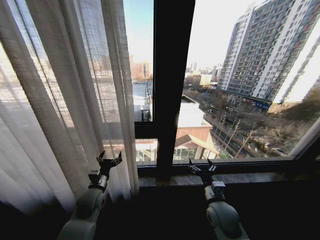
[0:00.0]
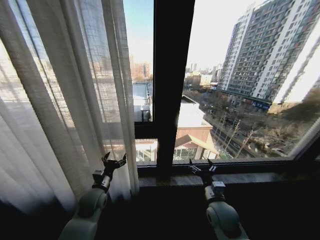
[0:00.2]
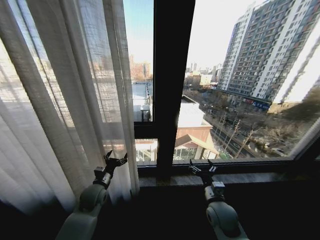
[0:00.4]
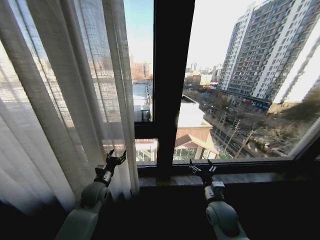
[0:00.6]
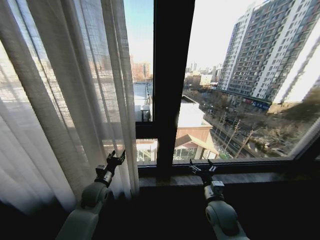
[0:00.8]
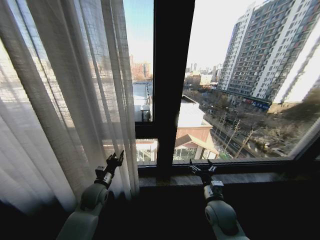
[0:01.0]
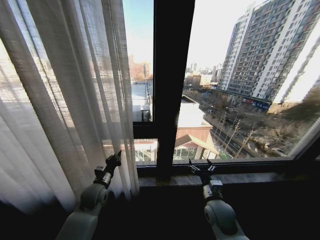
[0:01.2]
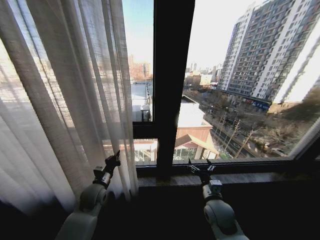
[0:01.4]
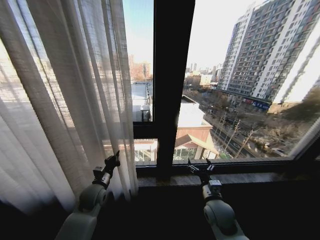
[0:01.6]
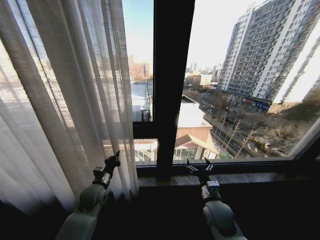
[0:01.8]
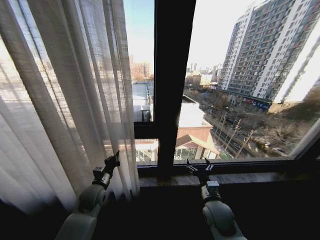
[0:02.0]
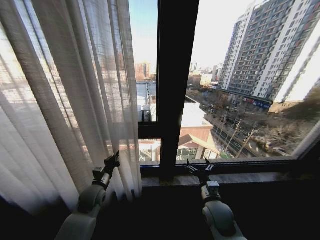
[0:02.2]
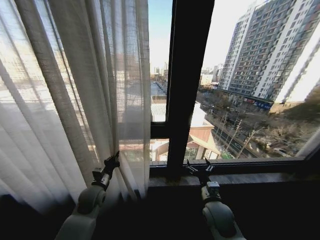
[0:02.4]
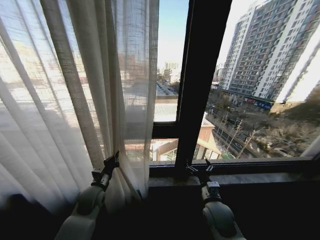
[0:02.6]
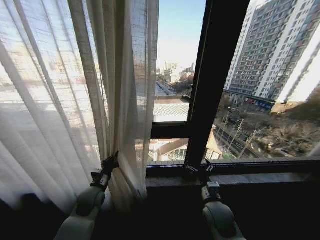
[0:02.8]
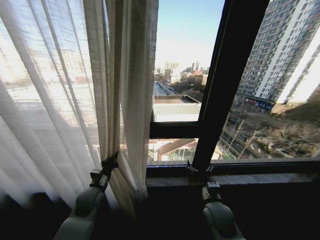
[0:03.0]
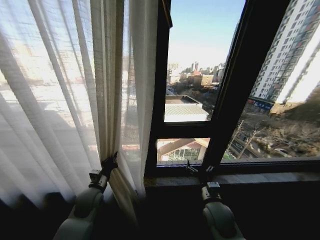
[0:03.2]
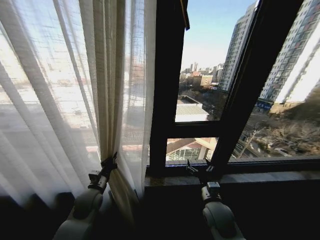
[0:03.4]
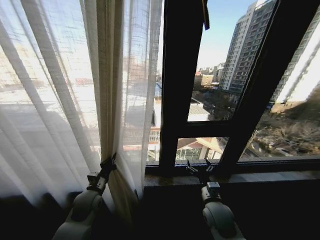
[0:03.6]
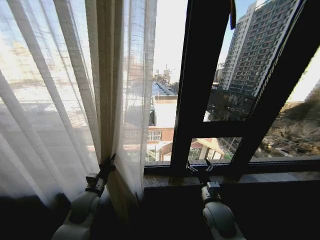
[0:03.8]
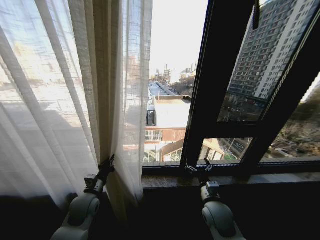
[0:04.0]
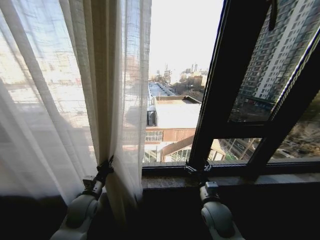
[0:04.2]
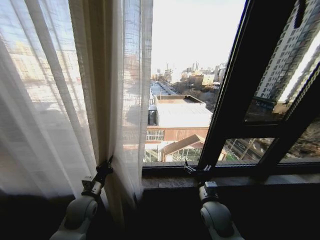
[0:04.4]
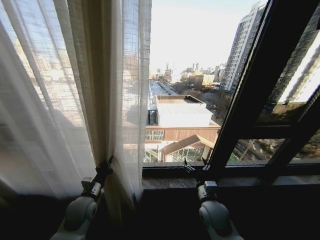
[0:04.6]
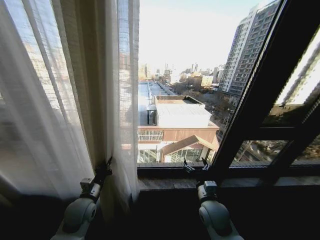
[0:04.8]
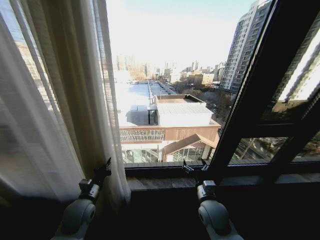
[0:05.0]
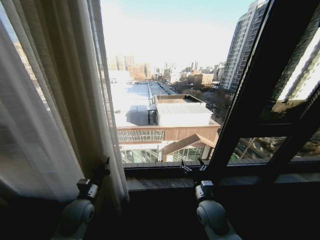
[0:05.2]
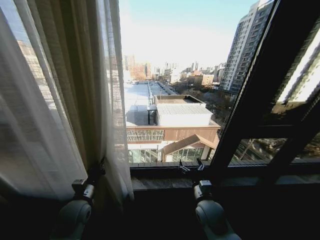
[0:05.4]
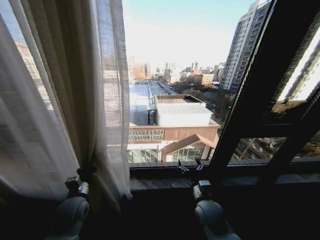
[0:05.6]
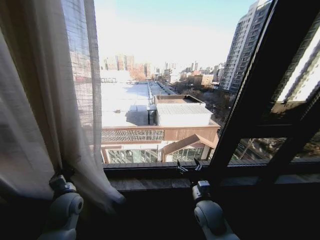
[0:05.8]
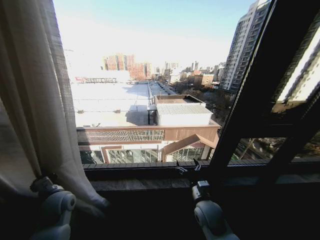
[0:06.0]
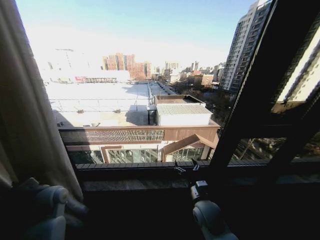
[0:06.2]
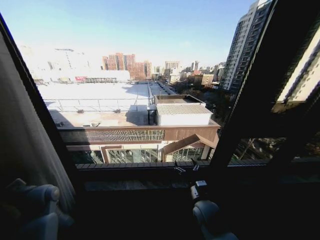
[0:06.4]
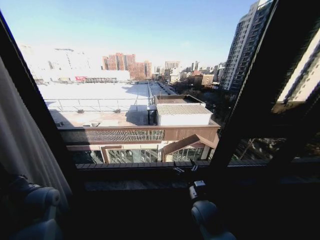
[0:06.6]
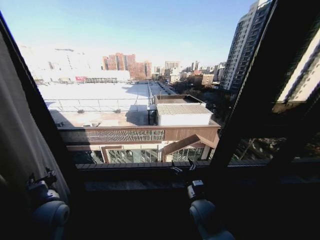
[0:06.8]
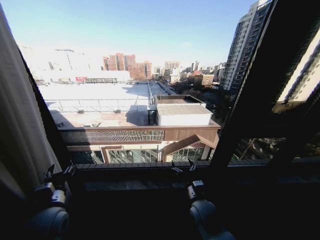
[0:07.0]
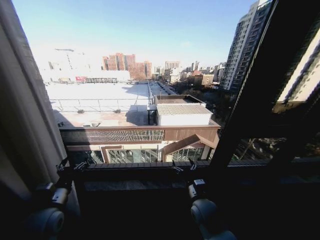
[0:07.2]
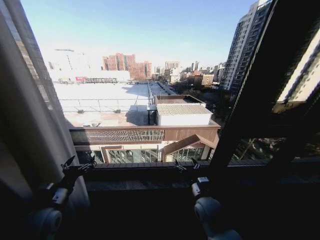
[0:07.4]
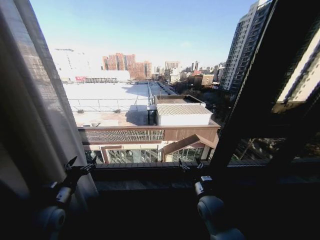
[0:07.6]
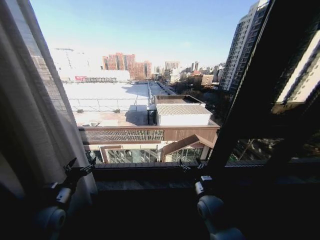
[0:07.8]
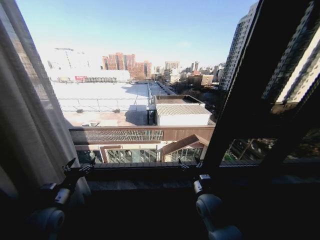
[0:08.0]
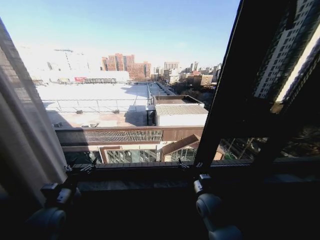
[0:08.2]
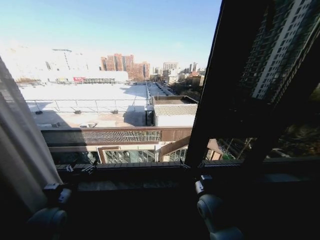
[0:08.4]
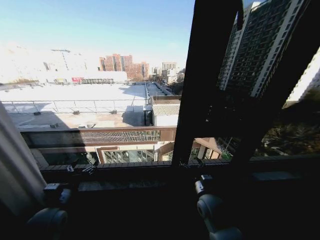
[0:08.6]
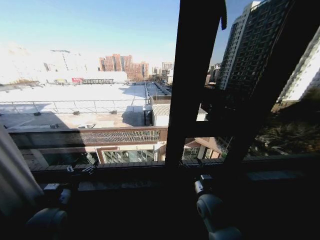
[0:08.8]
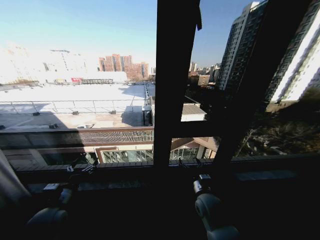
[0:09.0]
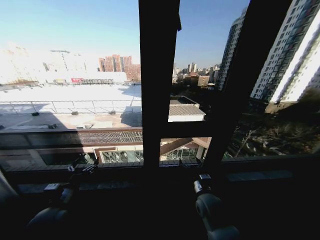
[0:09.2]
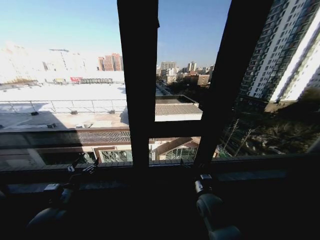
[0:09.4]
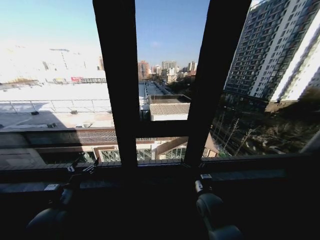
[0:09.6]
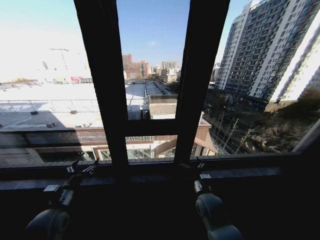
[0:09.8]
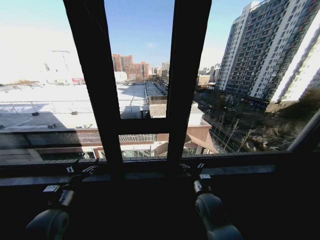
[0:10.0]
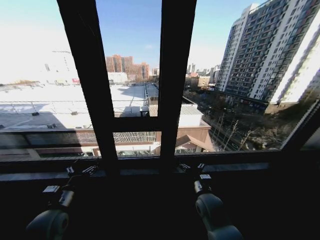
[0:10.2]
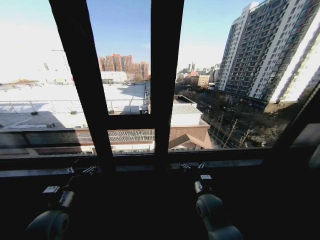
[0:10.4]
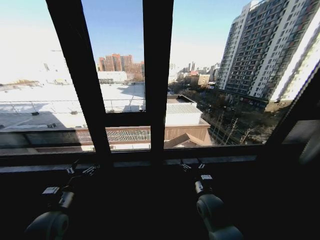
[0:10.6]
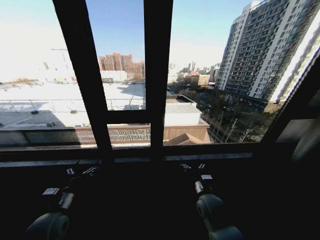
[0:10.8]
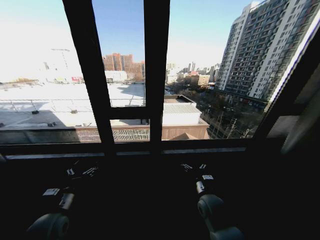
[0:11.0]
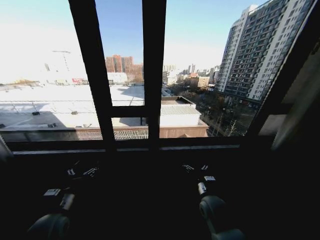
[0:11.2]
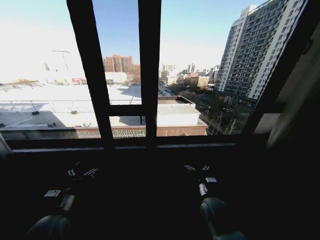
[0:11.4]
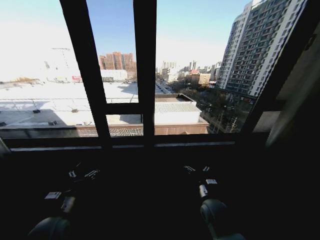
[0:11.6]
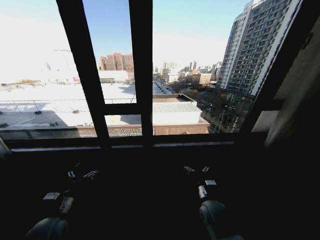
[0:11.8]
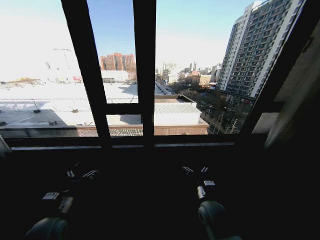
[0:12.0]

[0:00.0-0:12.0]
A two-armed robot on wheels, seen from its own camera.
Task of the whole recording: Open the curtains by pulling them apart, changing their state from closed to fully open.
0:00.0 to 0:01.6: The left gripper closes.
0:04.4 to 0:06.0: The left gripper heads to the left, covering approximately 10 cm.
0:06.0 to 0:07.6: The left gripper heads backward, covering some 5 cm, reaches some 5 cm to the left, then returns, and opens its fingers.
